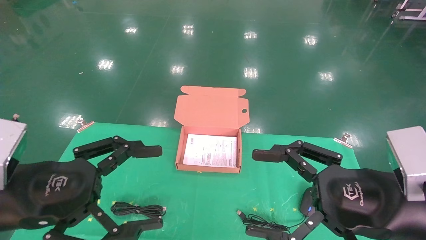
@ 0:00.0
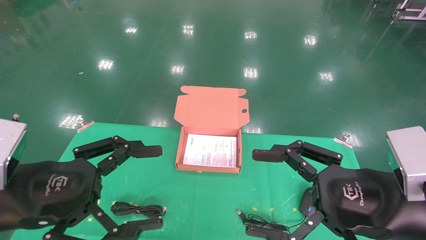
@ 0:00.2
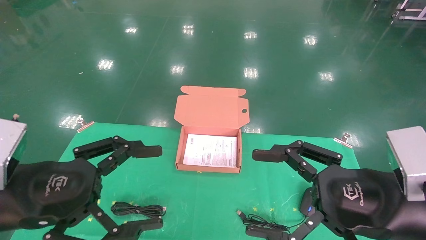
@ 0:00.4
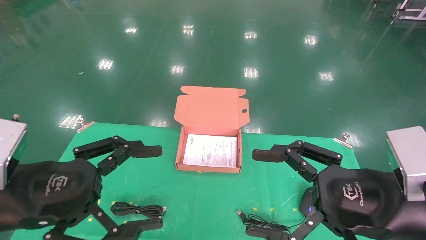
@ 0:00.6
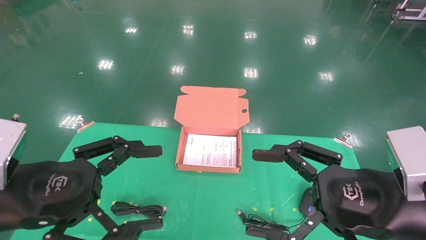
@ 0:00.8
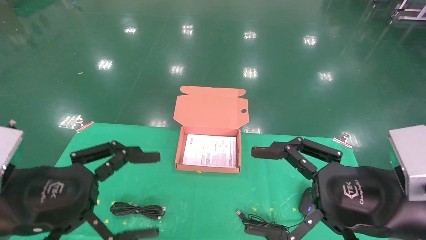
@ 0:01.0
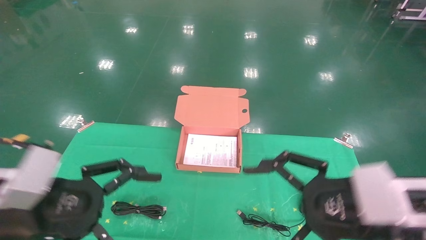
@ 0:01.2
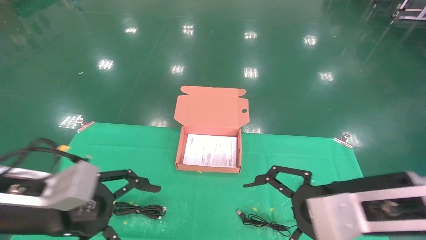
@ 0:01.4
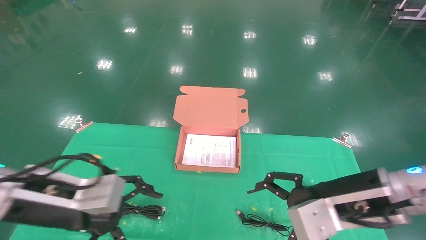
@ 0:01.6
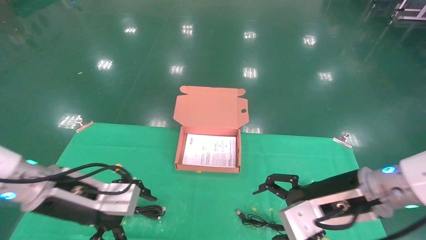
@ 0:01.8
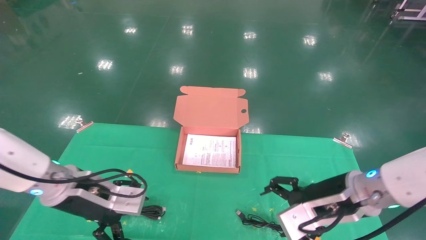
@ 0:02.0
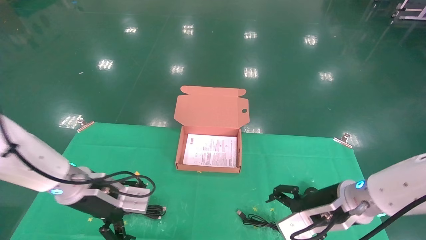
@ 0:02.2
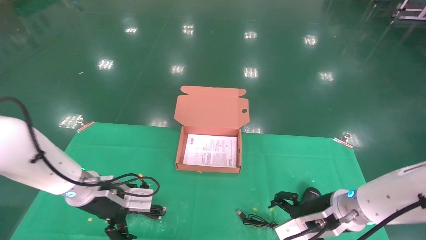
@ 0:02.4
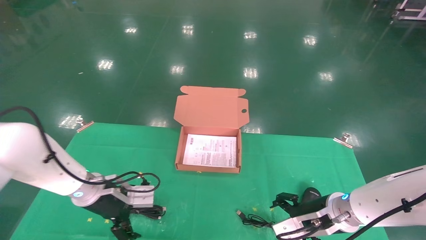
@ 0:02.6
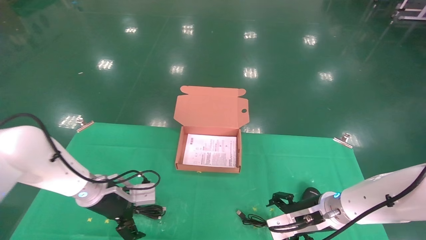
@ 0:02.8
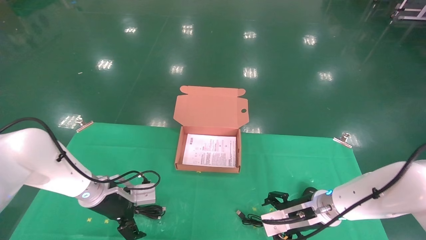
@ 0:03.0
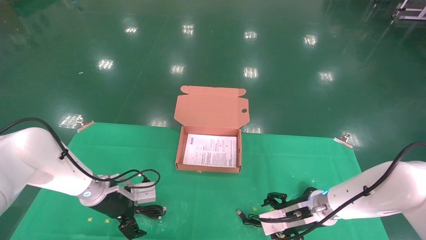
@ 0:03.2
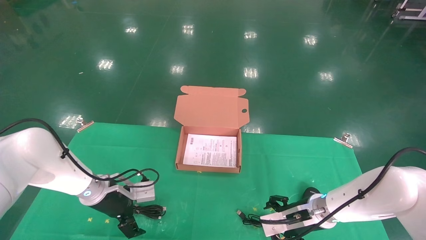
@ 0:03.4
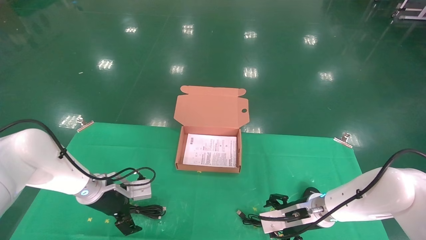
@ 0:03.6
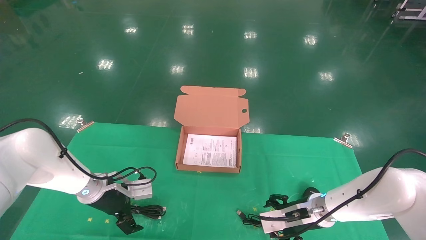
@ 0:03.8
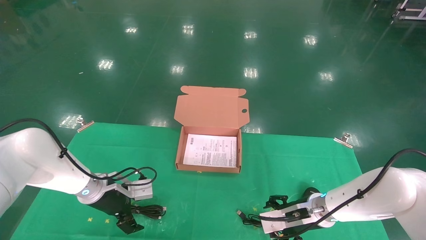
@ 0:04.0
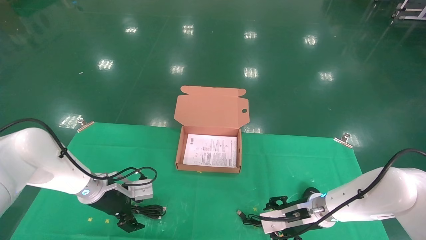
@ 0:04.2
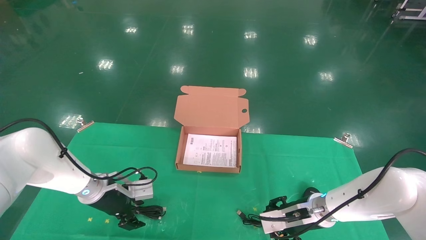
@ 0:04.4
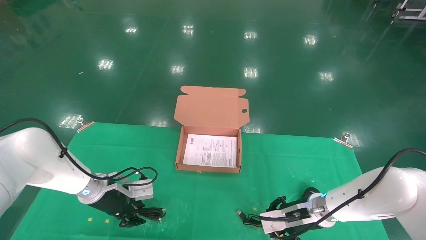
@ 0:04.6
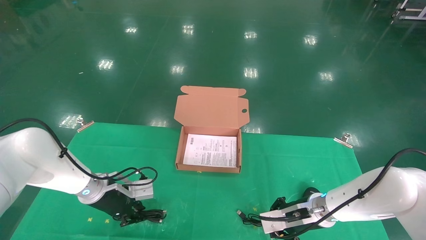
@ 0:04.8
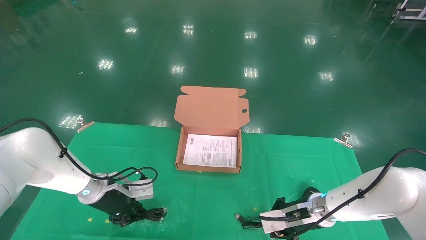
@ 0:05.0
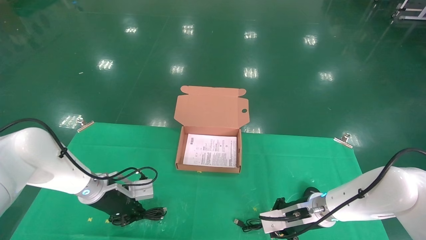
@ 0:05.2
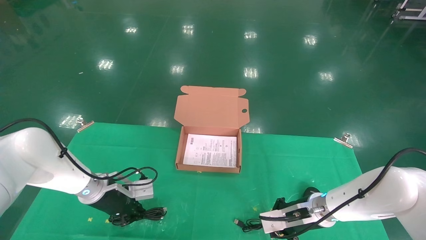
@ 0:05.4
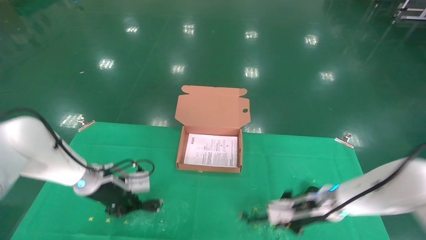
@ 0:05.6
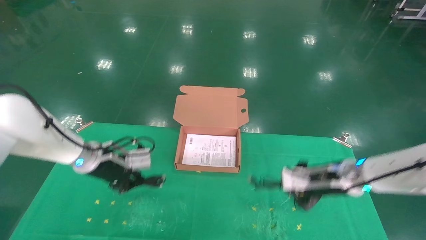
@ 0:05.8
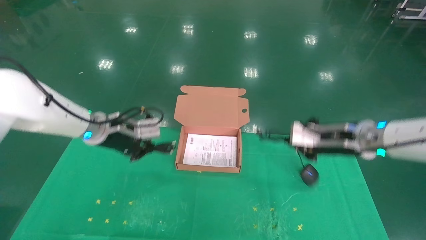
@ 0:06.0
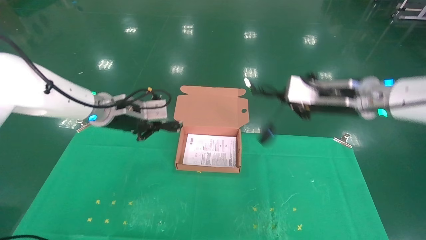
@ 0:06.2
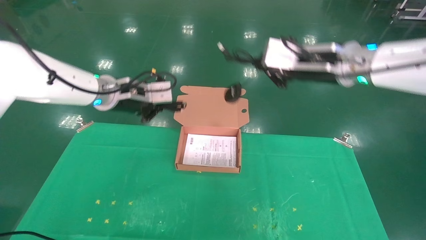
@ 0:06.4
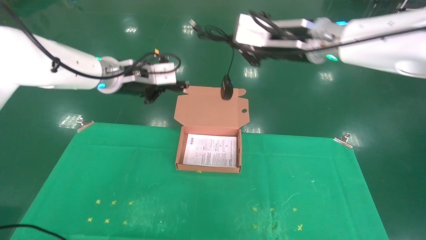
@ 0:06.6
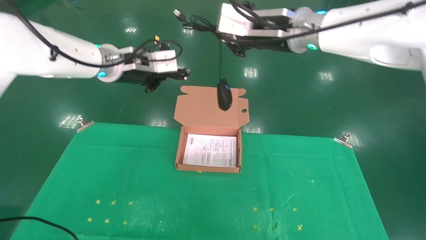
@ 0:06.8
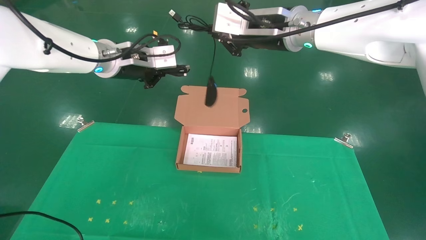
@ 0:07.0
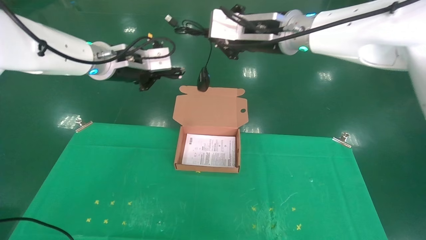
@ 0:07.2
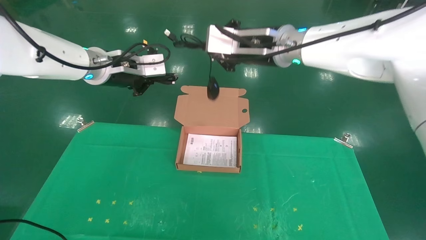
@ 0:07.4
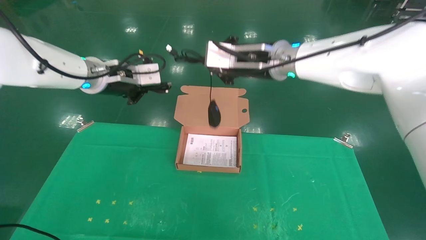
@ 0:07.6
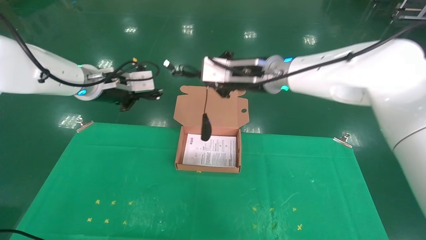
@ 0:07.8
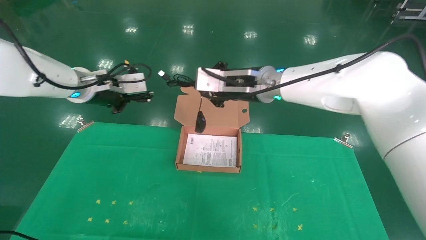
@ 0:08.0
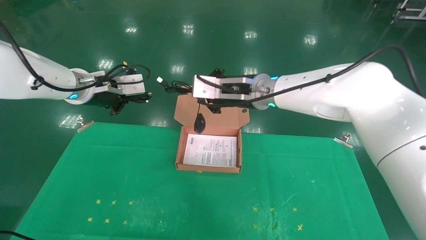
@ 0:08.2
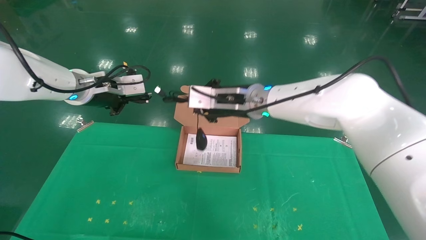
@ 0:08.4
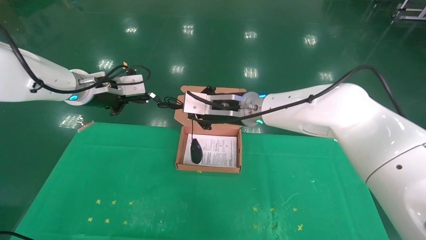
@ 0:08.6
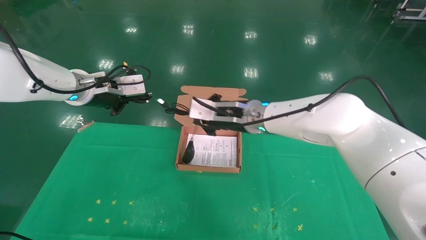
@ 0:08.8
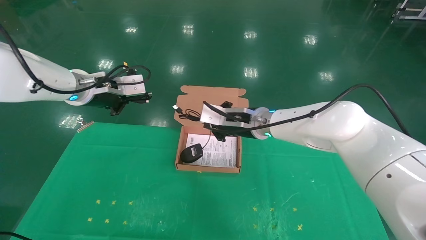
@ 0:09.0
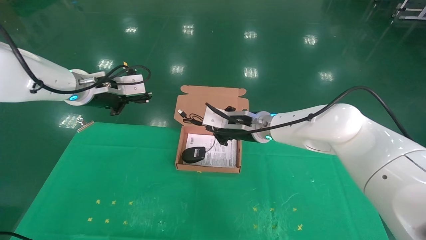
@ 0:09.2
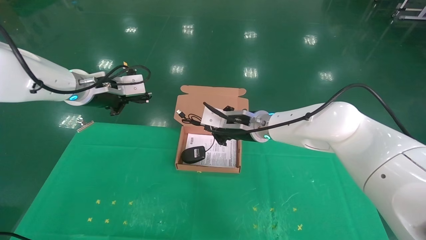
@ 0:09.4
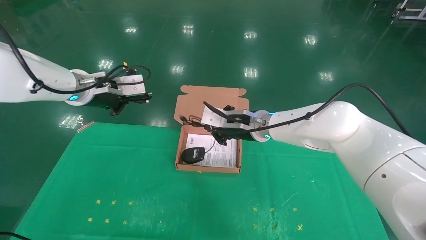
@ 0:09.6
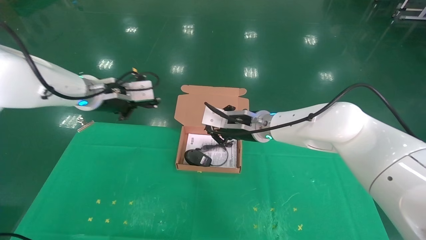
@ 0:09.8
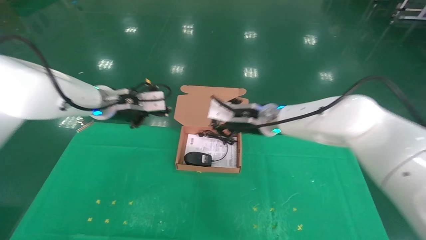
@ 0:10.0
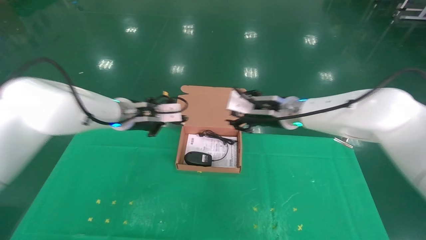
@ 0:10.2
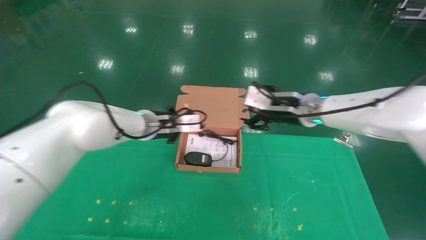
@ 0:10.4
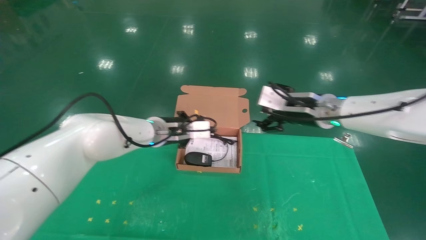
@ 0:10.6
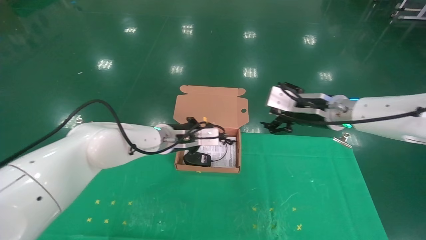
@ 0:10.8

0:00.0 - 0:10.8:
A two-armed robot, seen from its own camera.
Task of the whole recording: grasp data cable left put into box grasp mouse right put into box.
Step, 0:01.4 - 0:06.2: Grab and pick up both the mouse and power cord from the accessory packaging area at the same time.
0:00.0 - 0:01.6: Both grippers travel together forward, about 5 cm.
0:01.6 - 0:03.0: The left gripper is displaced forward and downward by about 20 cm. Meanwhile the right gripper is displaced downward and forward by approximately 20 cm.
0:03.0 - 0:04.6: The left gripper closes up; the right gripper closes its fingers.
0:04.6 - 0:06.2: Both grippers travel together upward, approximately 20 cm. The left gripper closes up; the right gripper closes.
0:06.2 - 0:07.8: The right gripper travels to the left by about 15 cm; the left gripper goes some 5 cm upward.
0:07.8 - 0:09.2: The right gripper travels downward by some 10 cm.
0:09.2 - 0:10.8: The left gripper shifts roughly 20 cm to the right and downward. The right gripper shifts about 15 cm to the right, and opens up.

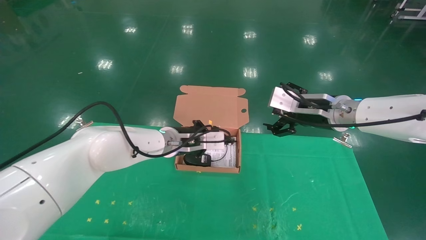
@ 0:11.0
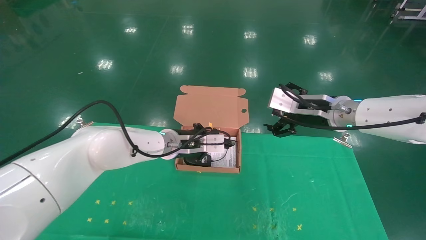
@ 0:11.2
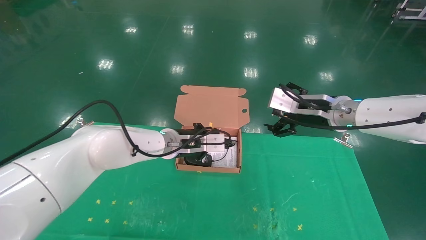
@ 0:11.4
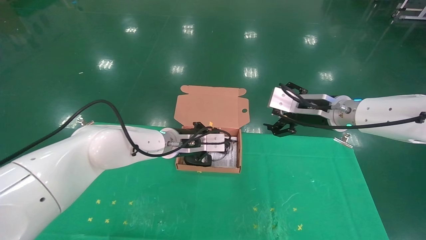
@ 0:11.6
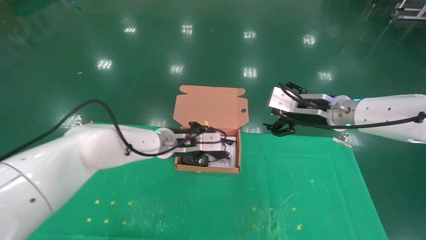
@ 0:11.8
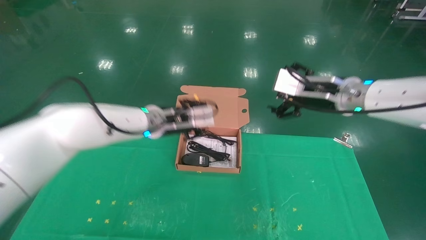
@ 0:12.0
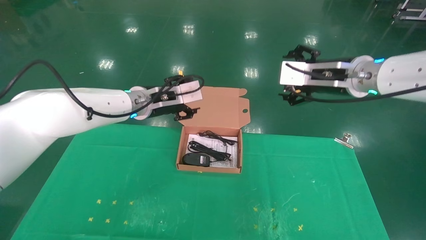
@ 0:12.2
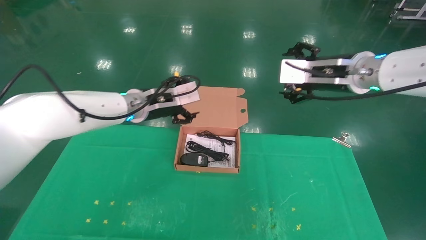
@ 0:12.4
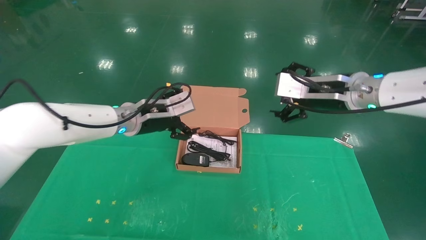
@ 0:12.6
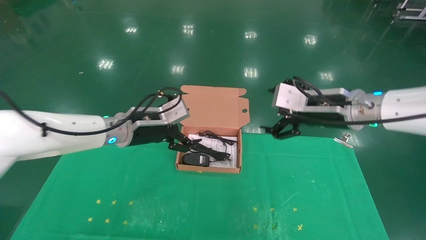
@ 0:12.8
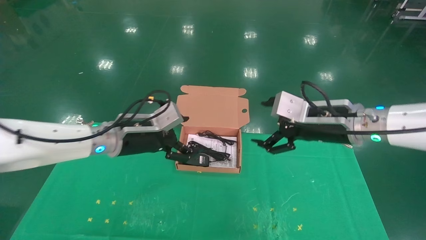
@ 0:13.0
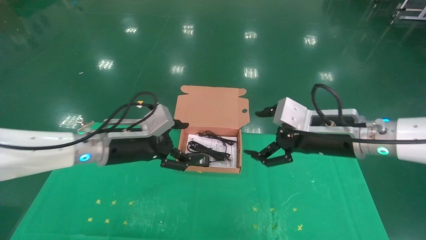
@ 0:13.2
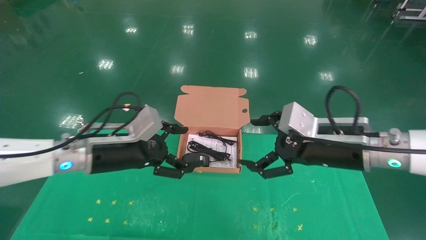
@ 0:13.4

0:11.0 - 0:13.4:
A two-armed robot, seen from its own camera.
Task of the whole recording: grasp data cable left put into box grasp mouse right put into box.
0:11.0 - 0:12.2: Both grippers travel together upward, about 5 cm. The left gripper opens its fingers.
0:12.2 - 0:13.4: The right gripper goes approximately 10 cm downward and backward. Meanwhile the left gripper goes roughly 15 cm backward, to the left and downward, and opens.
